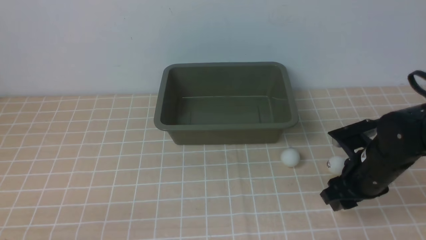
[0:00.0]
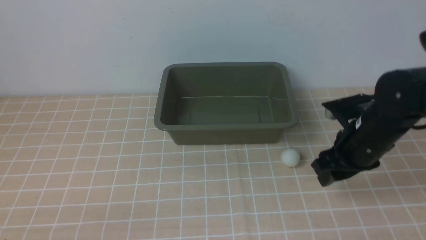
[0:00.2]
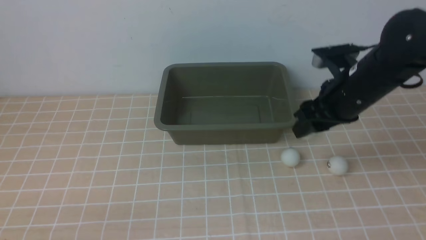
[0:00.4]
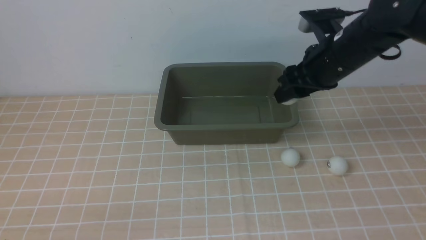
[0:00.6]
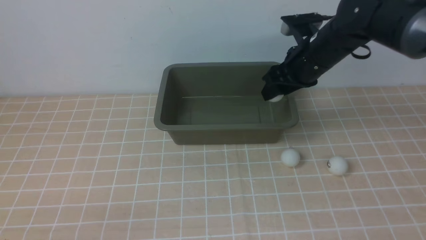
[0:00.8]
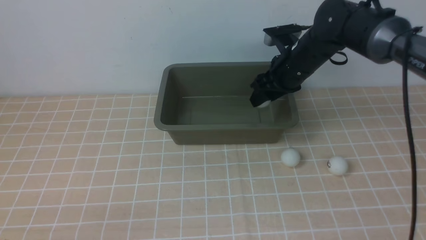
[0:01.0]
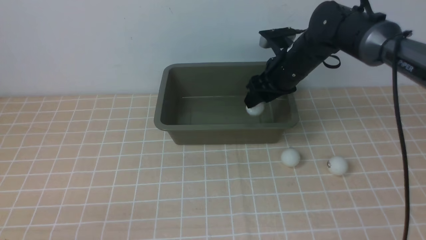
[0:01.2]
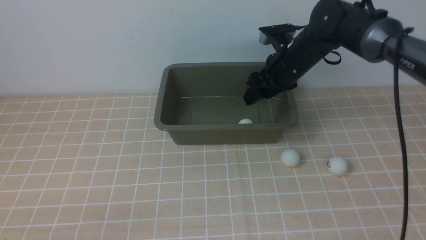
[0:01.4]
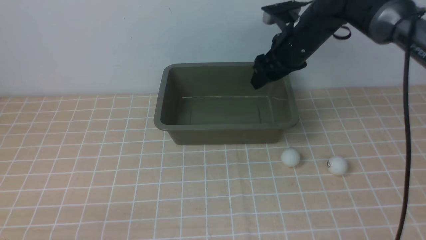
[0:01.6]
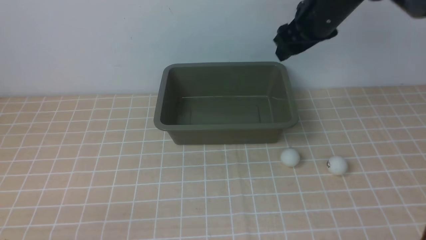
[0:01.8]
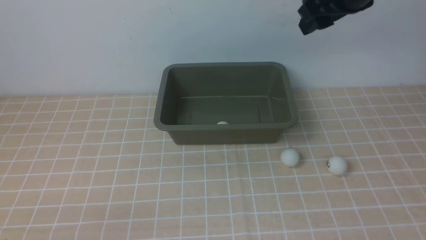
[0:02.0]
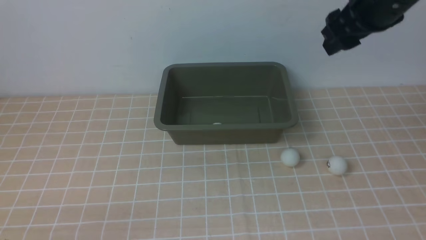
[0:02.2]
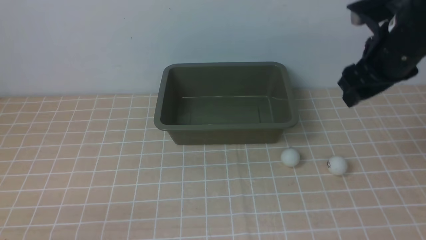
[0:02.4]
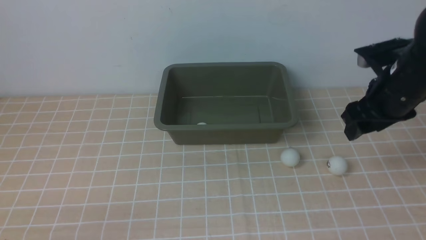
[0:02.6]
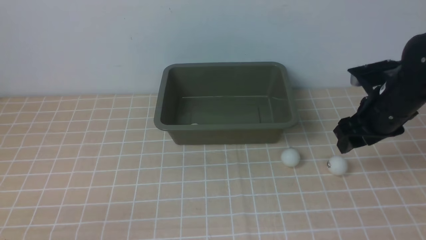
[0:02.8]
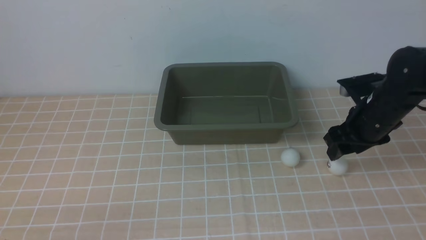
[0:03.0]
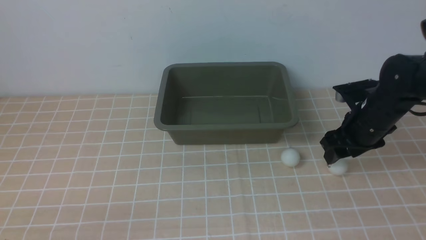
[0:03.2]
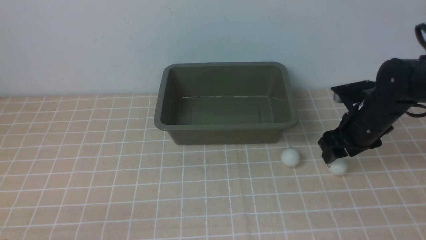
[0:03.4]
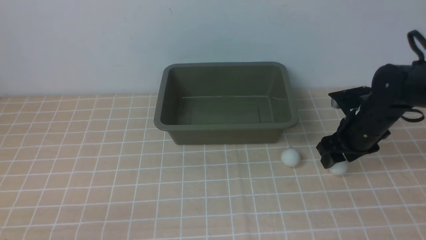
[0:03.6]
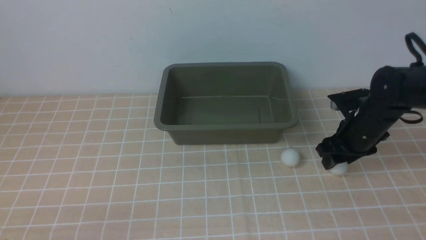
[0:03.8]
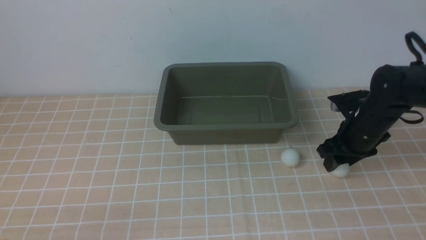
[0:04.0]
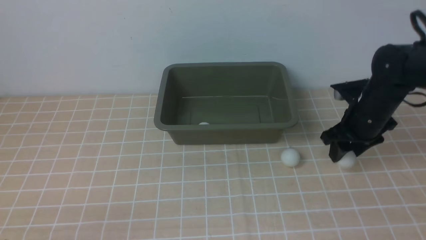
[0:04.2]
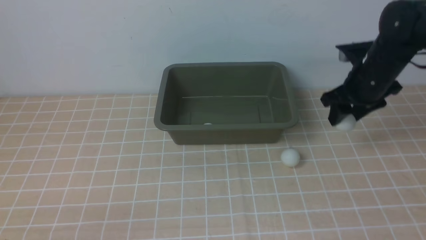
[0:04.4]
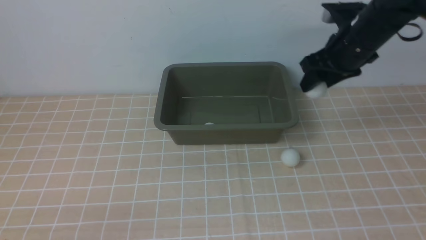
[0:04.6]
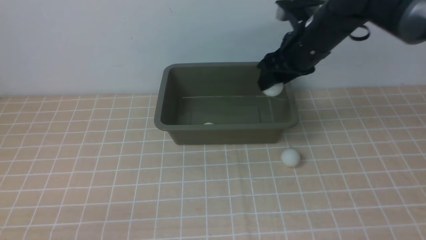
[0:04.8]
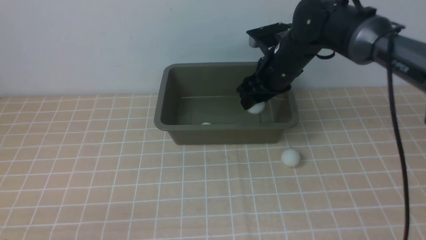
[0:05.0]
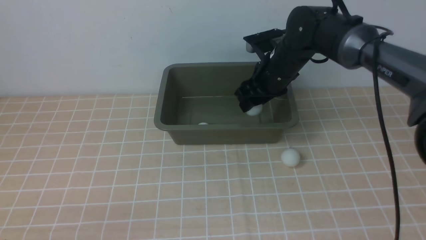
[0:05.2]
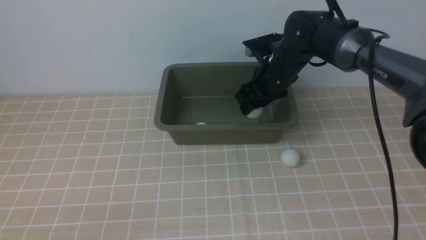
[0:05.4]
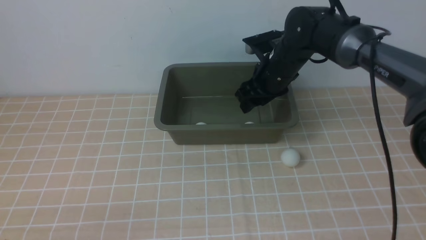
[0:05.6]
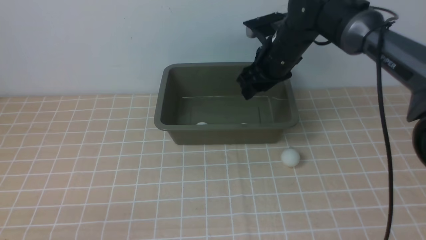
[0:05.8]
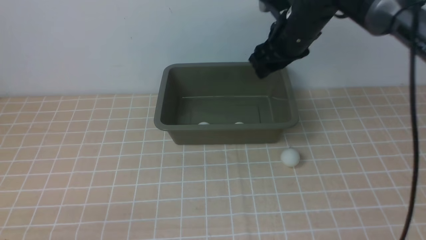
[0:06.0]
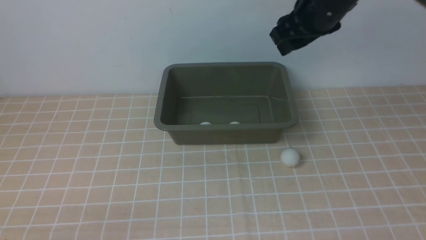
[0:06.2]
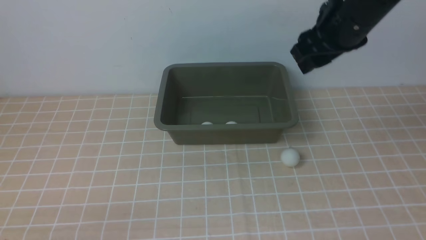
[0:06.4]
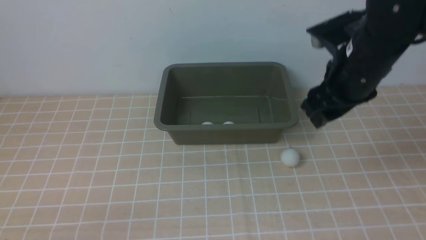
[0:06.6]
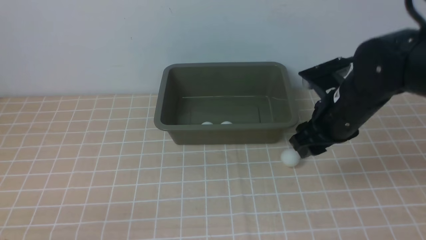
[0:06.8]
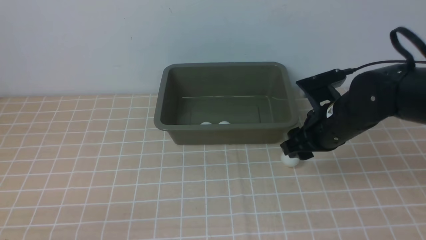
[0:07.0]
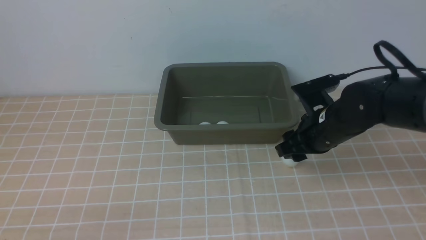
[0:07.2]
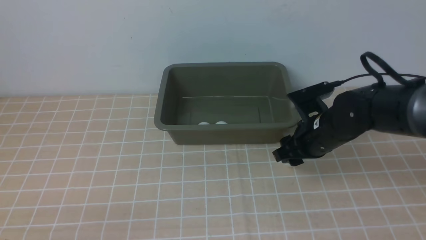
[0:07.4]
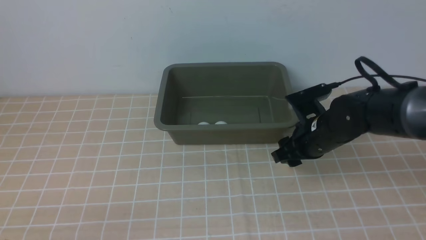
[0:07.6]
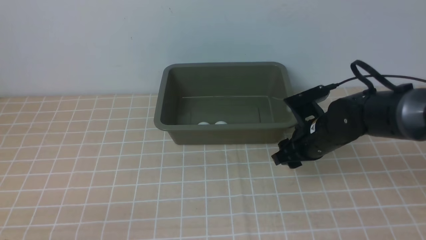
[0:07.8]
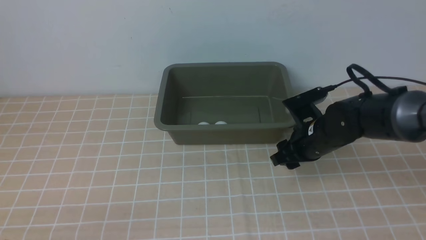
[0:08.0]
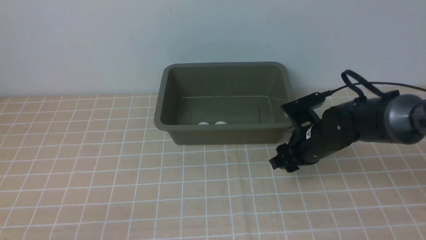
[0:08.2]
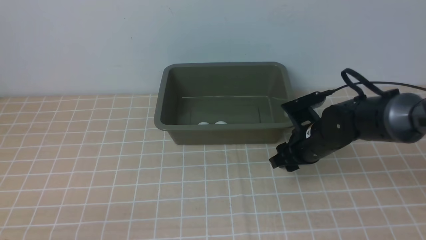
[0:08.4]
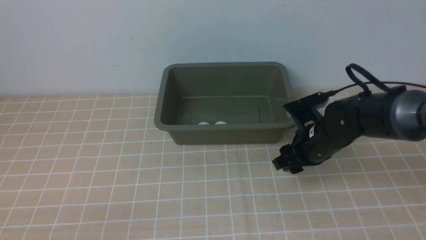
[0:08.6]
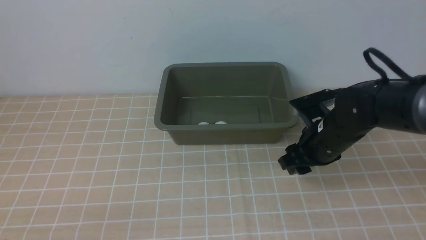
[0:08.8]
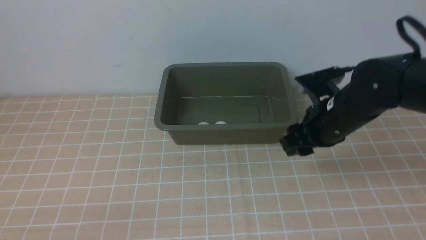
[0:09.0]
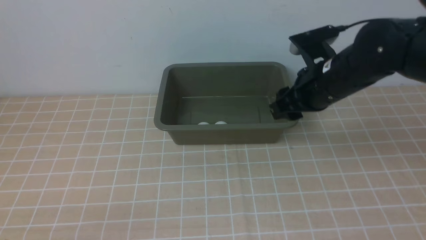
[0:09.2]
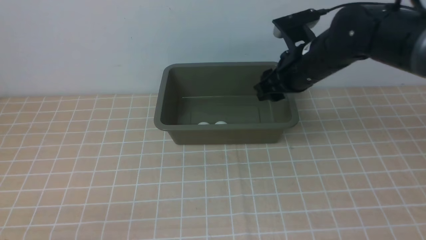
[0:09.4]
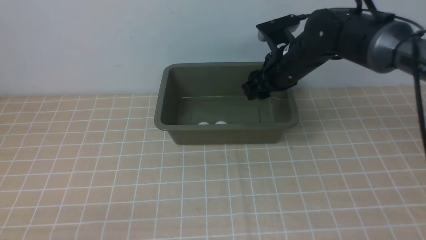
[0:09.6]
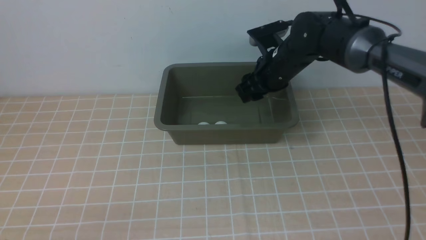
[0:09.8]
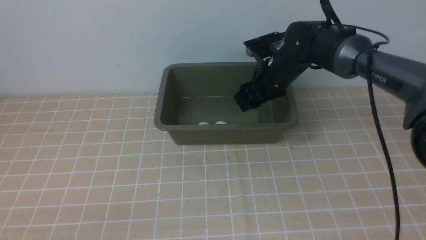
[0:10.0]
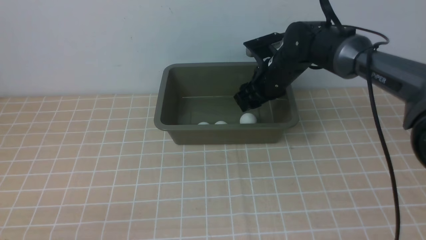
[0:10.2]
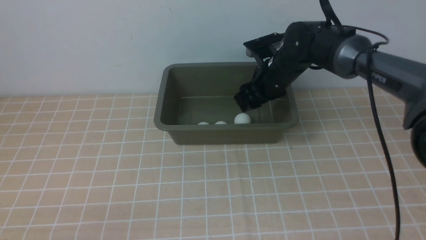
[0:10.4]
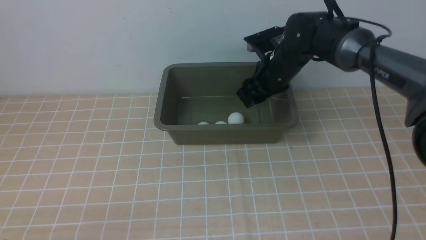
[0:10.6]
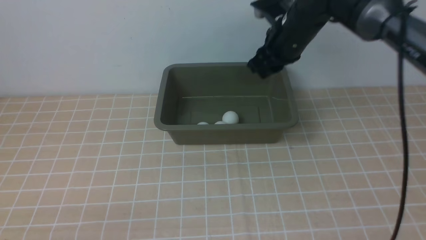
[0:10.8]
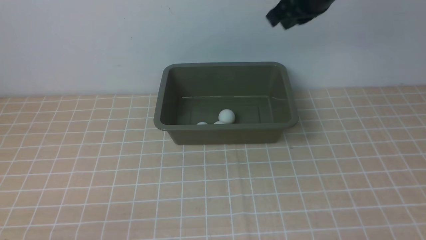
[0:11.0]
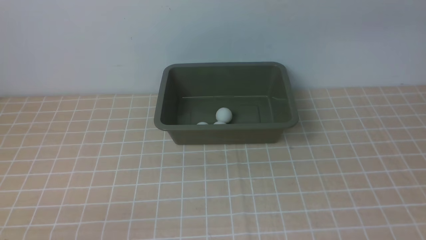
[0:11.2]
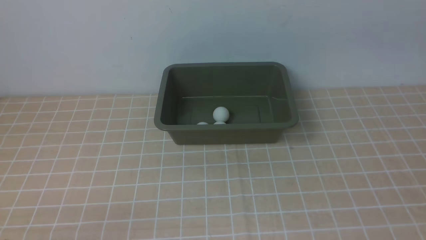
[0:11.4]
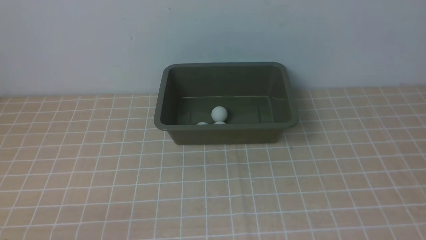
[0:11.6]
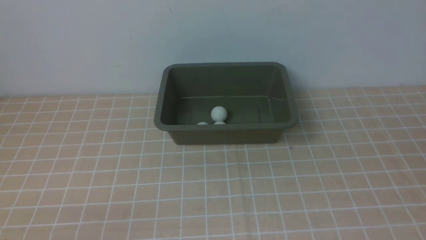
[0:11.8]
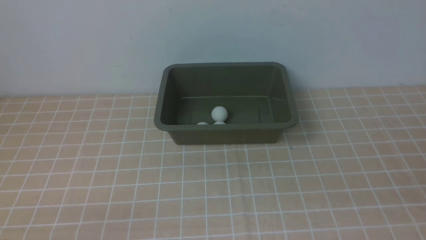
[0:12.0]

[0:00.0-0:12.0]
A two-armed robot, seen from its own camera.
Step, 0:00.6 to 0:01.4: use the right arm to put the table tennis ball into the box.
Step, 0:01.6 to 0:04.4: use the right arm to clamp the table tennis ball closest to it.
Step, 0:04.6 to 0:05.8: use the right arm to put the table tennis ball into the box.
Step, 0:06.0 to 0:08.8: use the right arm to clamp the table tennis ball closest to it.
Step, 0:09.0 to 0:10.4: use the right arm to put the table tennis ball into the box.
0:00.0 to 0:01.6: The right gripper goes some 20 cm forward, upward and to the left.
0:01.6 to 0:03.0: The right gripper moves to the right, downward and backward, about 15 cm.
0:03.0 to 0:04.4: The right gripper moves about 5 cm.
0:04.4 to 0:06.0: The right gripper shifts approximately 10 cm to the left and upward.
0:06.0 to 0:07.6: The right gripper moves downward and backward, some 20 cm.
0:07.6 to 0:09.0: The right gripper moves upward, roughly 5 cm.
0:09.0 to 0:10.4: The right gripper is displaced forward and to the left by about 15 cm.
0:10.4 to 0:12.0: The right gripper heads backward and to the right, covering some 50 cm, and closes.

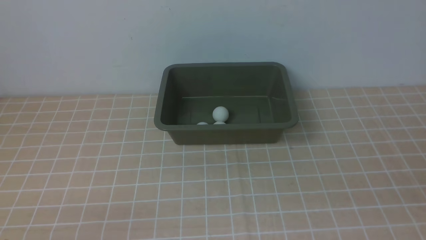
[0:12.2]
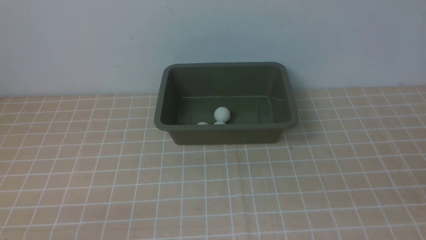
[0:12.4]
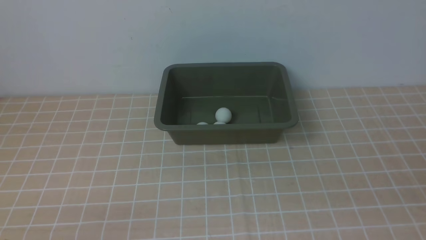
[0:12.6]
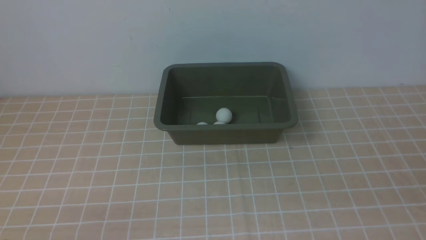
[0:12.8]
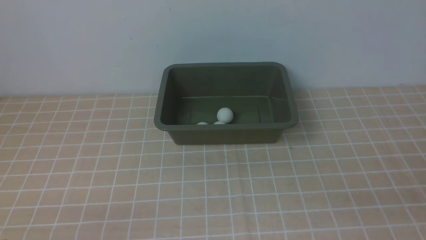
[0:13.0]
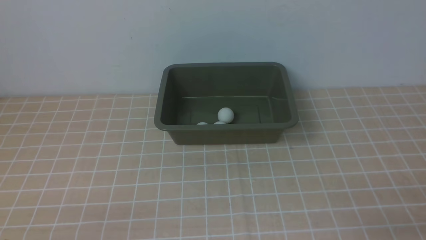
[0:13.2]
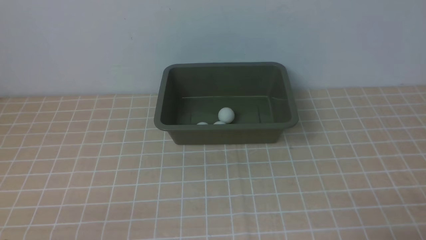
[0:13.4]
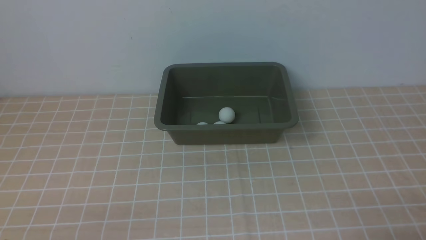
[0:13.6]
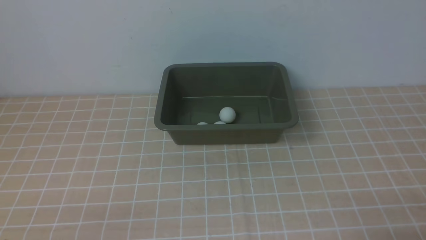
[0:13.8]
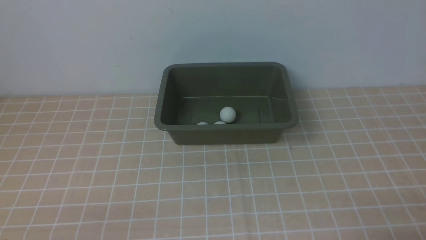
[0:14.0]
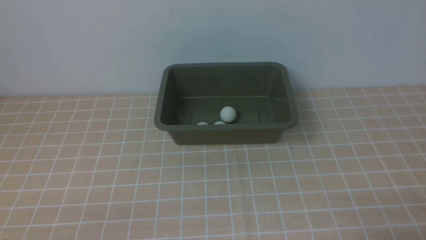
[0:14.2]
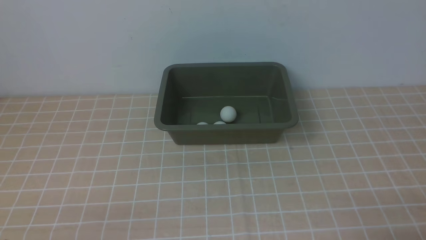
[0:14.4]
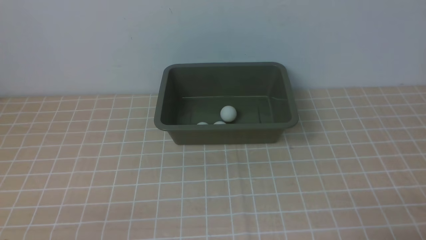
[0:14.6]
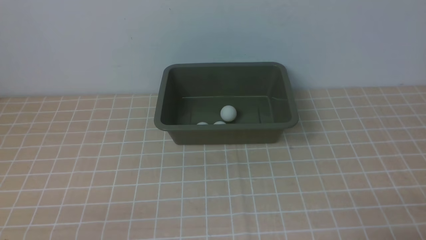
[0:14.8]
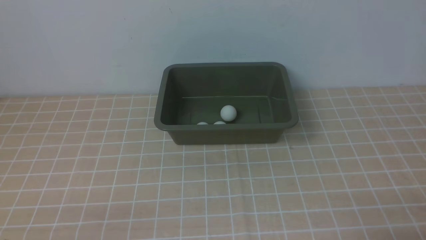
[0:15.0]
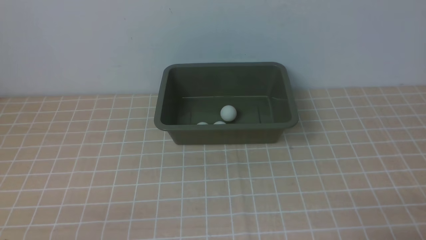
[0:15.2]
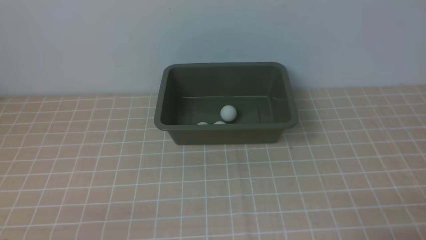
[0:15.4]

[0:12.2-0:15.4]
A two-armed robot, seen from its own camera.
0:13.8 to 0:15.4: Neither gripper changes place.
